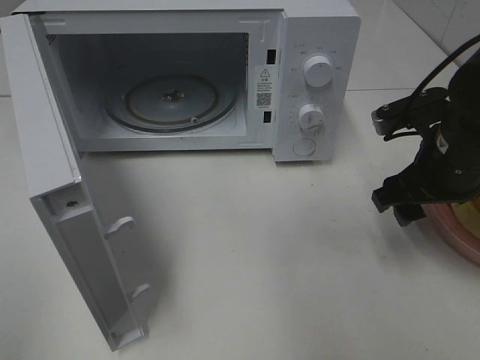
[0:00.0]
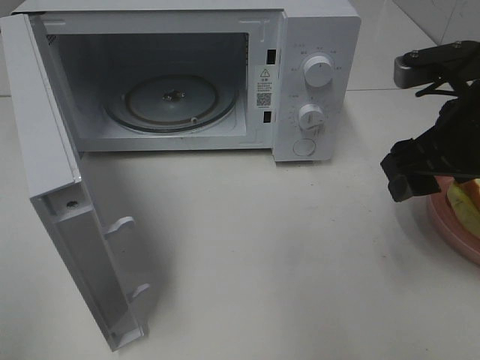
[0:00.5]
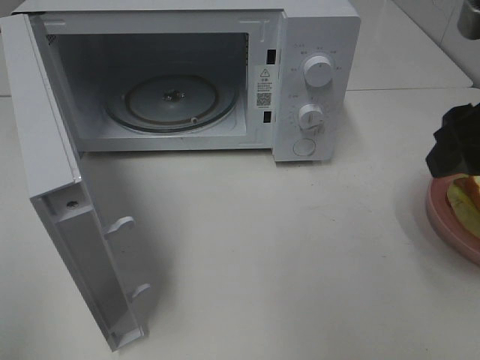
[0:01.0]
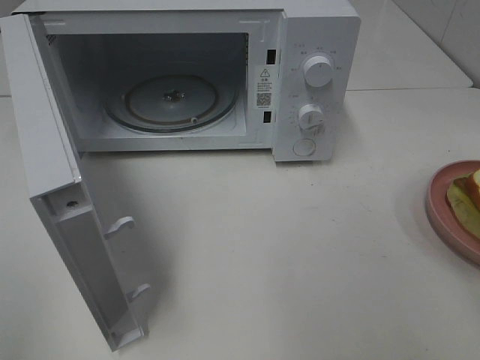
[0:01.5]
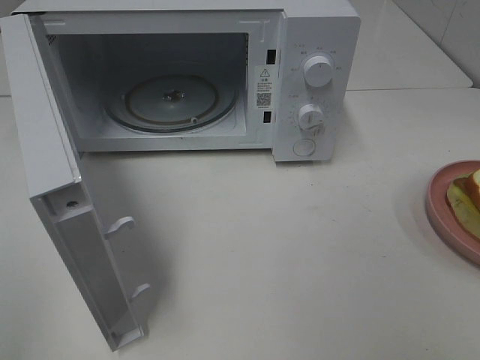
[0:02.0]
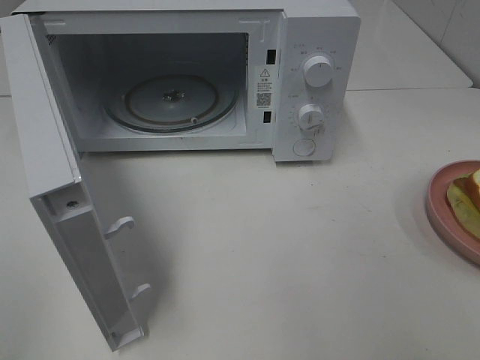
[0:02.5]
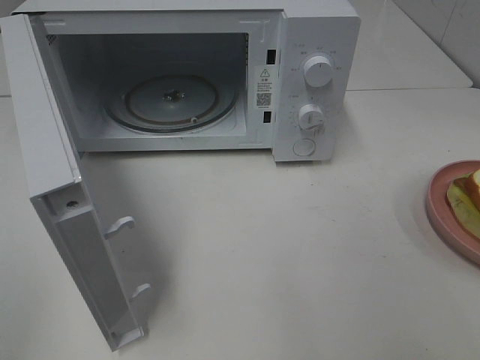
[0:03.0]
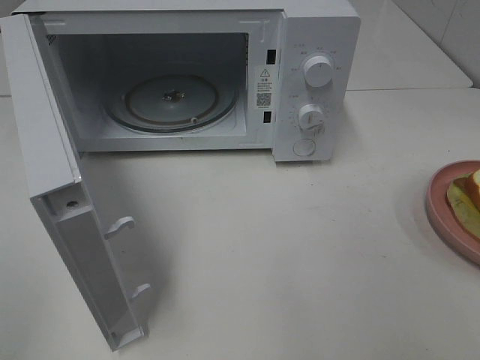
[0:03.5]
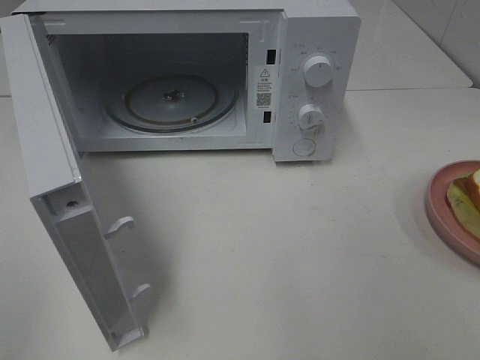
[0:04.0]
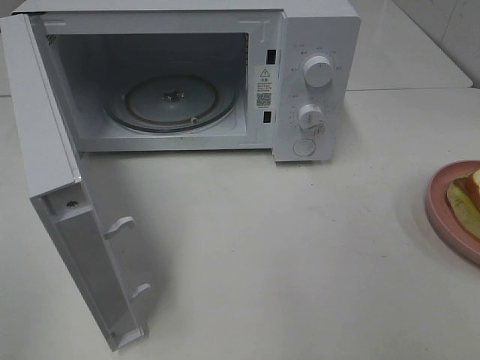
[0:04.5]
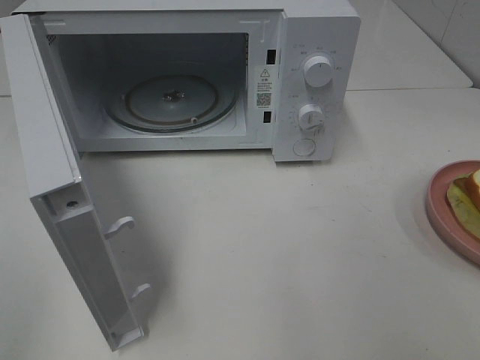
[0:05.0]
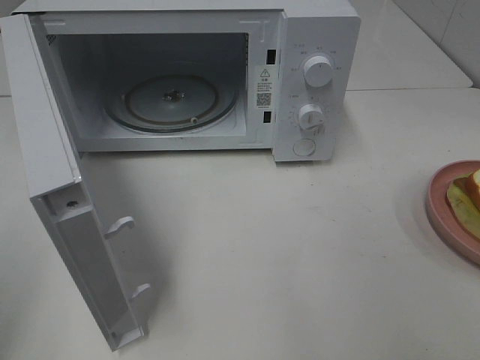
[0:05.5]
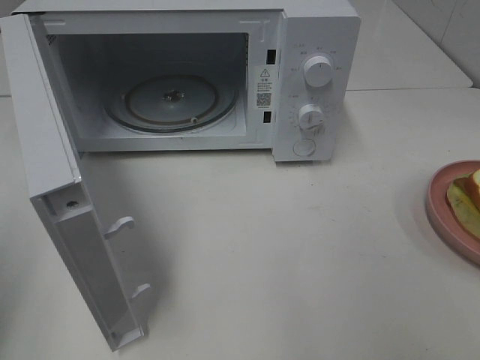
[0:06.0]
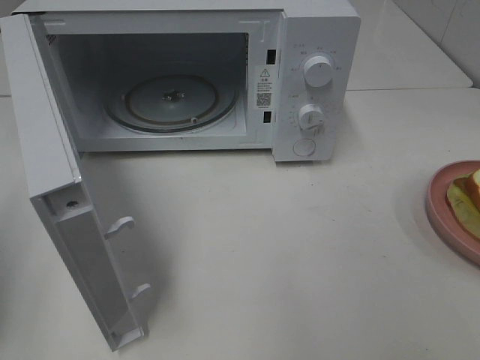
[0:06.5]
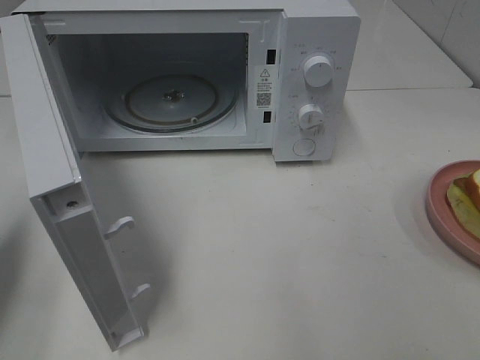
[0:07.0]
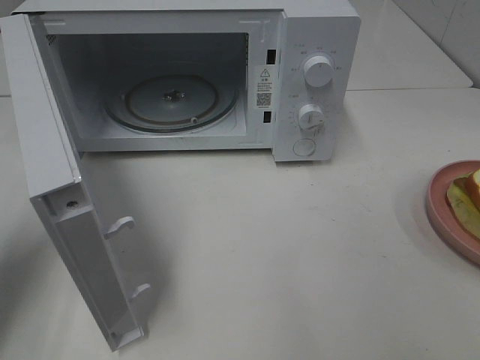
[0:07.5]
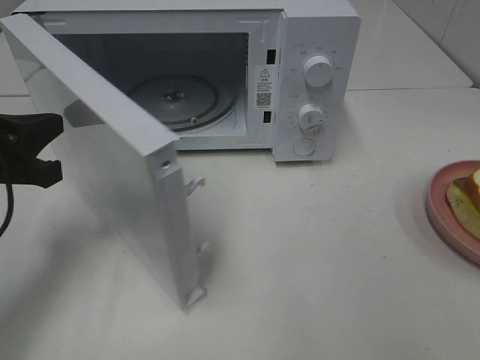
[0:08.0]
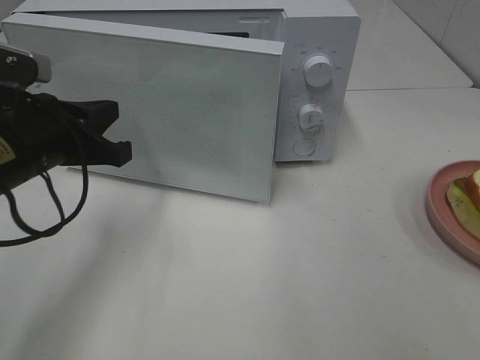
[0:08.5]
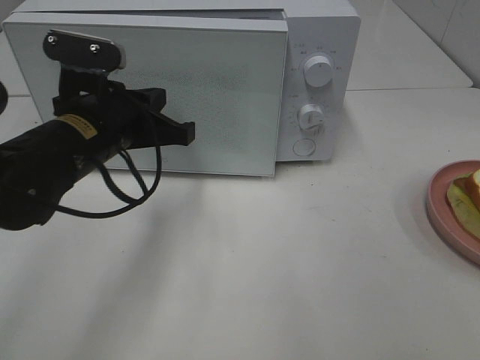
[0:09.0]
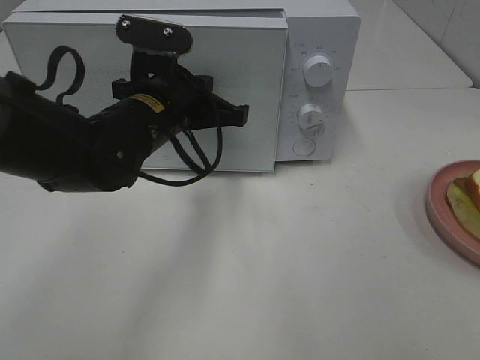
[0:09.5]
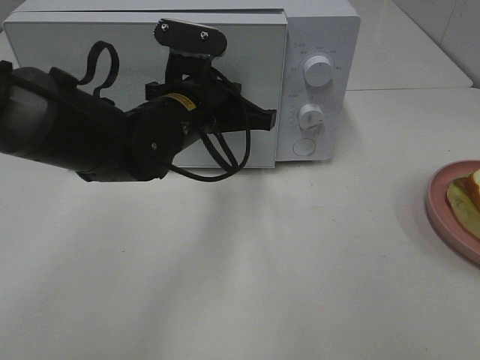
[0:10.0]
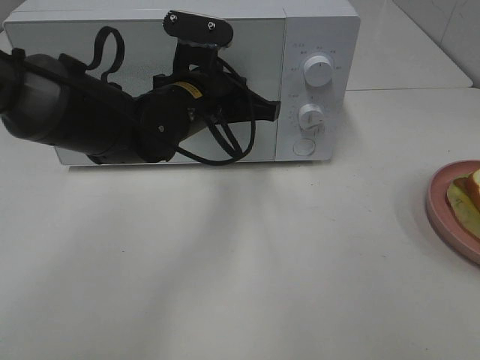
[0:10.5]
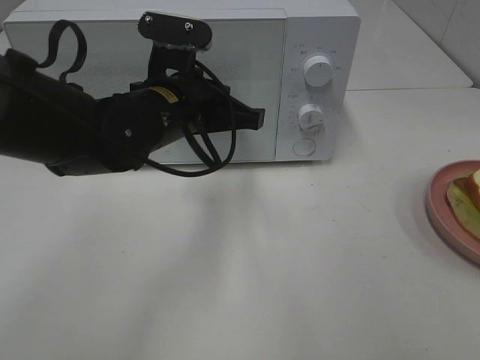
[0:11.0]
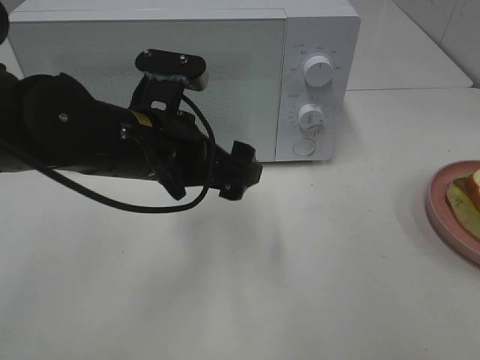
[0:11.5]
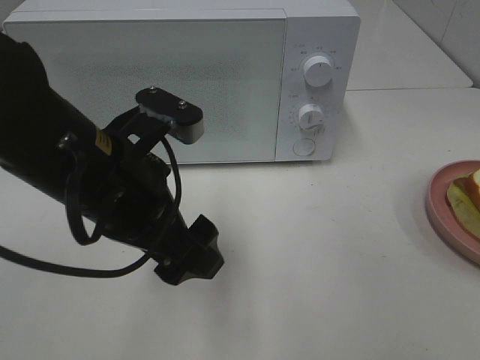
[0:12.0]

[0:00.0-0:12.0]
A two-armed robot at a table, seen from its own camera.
Task of the whole recording: Heat Sandwich.
Step, 0:00.0 to 0:10.5: Left hand: close the microwave door.
0:00.0 to 0:02.0: The right gripper heads backward and upward, covering roughly 25 cm.
0:06.0 to 0:08.0: The left gripper goes about 20 cm forward, downward and to the right.
0:08.0 to 0:10.0: The left gripper is displaced to the right and forward by approximately 20 cm.
0:10.0 to 0:12.0: The left gripper goes about 15 cm backward and to the left, and opens up.

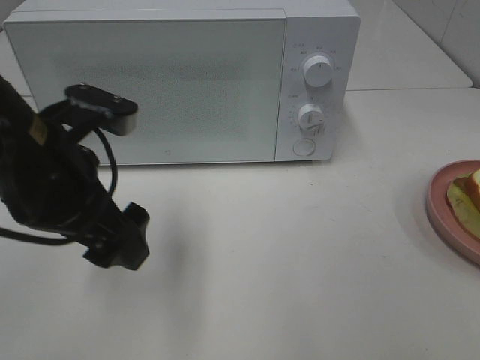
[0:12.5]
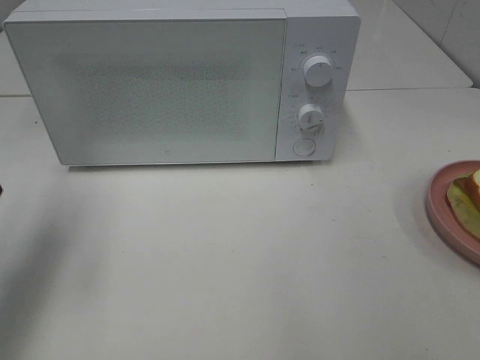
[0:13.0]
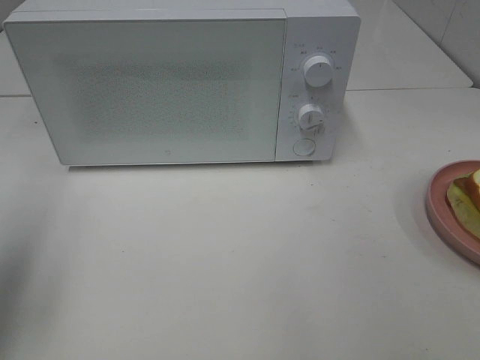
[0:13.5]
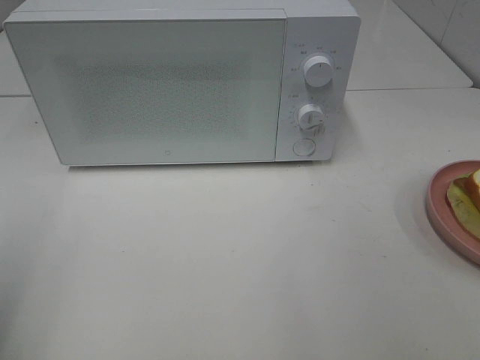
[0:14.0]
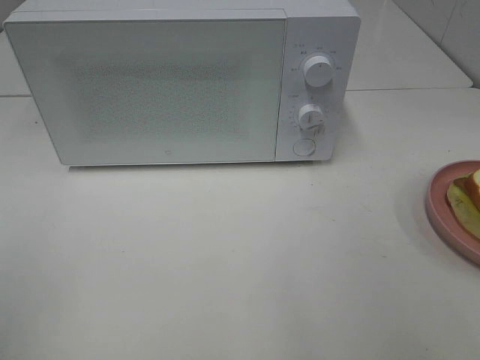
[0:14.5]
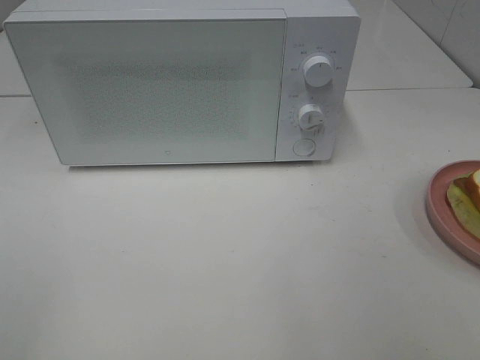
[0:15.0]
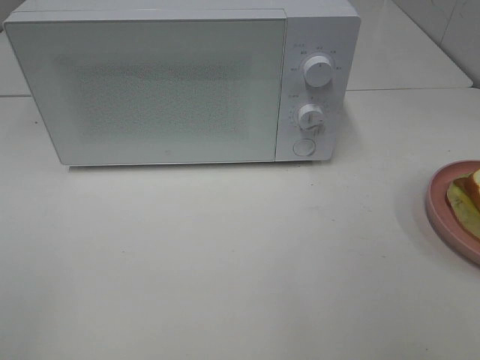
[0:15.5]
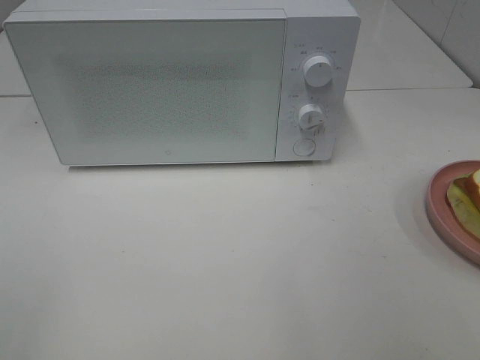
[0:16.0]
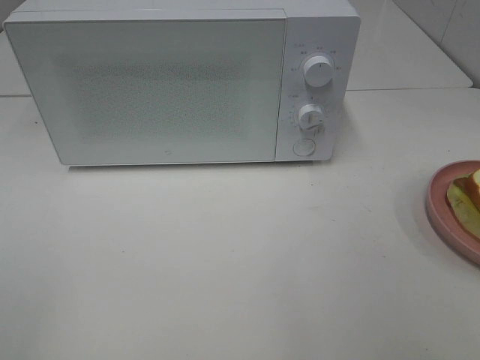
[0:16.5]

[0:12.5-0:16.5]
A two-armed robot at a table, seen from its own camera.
Task of the whole recording: Heat Sandwich.
0:12.5 to 0:14.5: The left gripper goes roughly 25 cm backward and to the left.

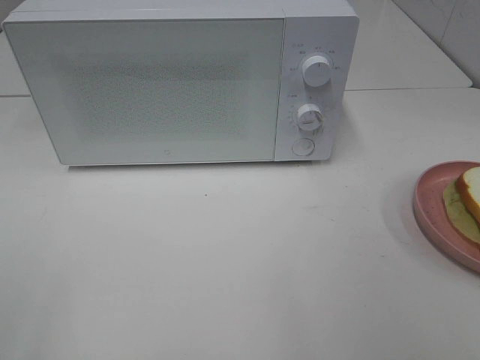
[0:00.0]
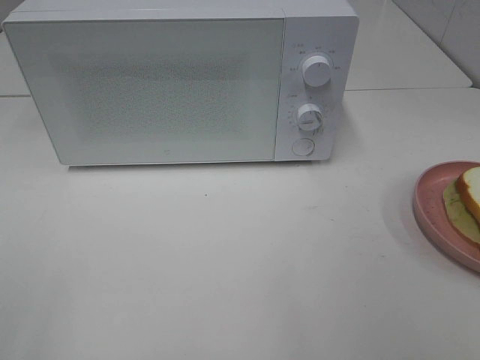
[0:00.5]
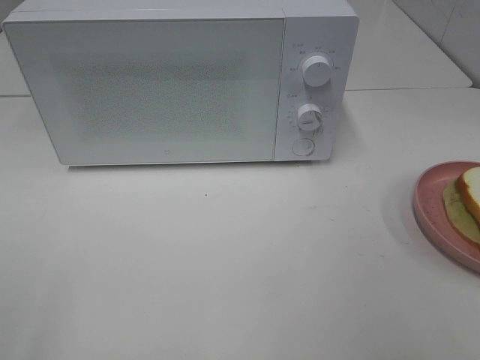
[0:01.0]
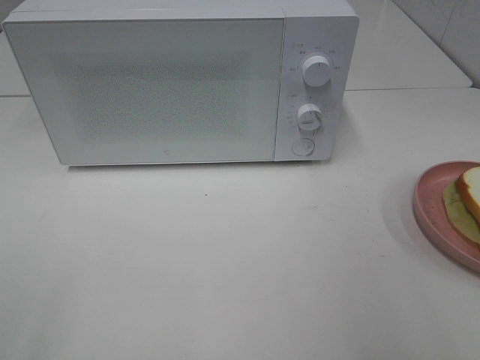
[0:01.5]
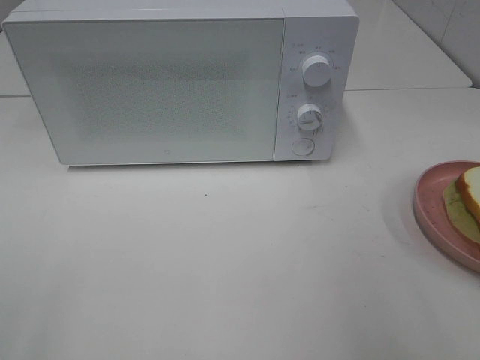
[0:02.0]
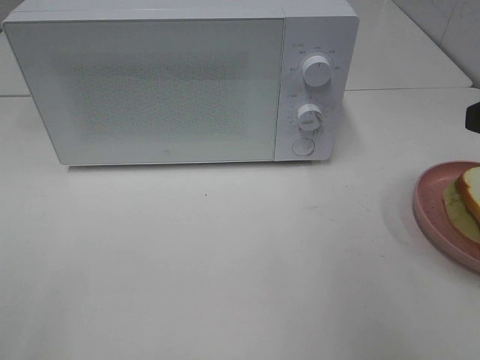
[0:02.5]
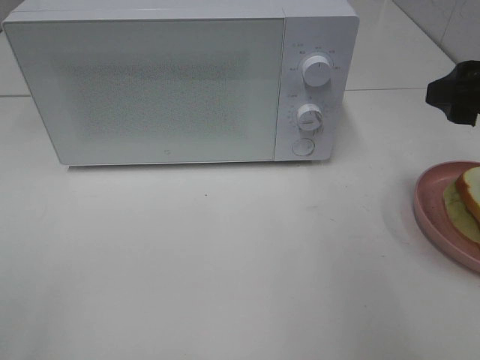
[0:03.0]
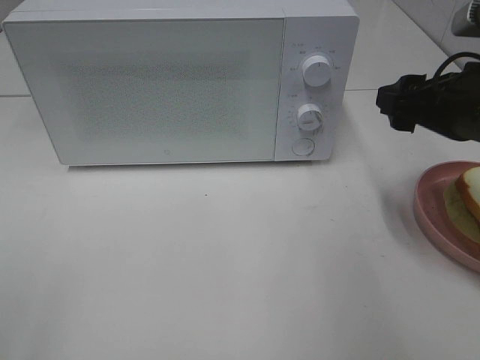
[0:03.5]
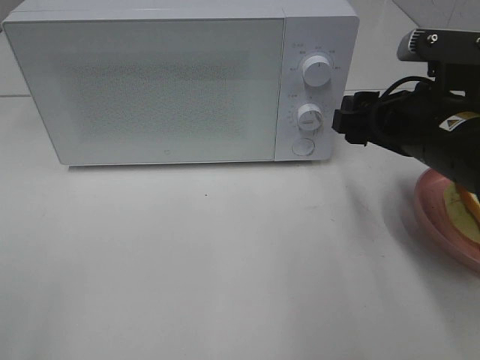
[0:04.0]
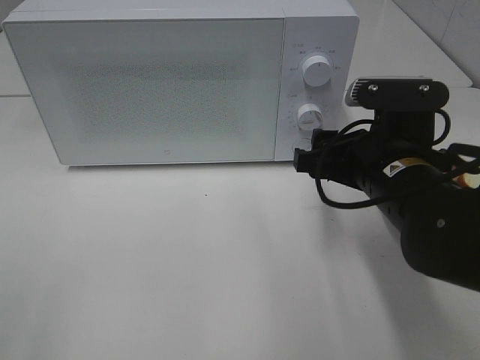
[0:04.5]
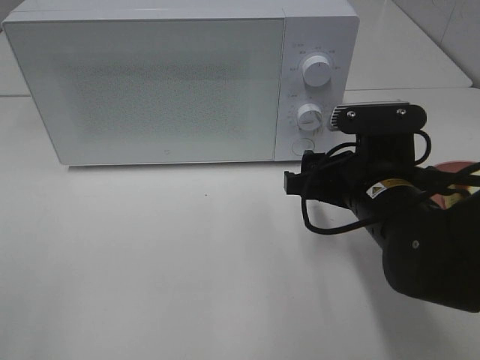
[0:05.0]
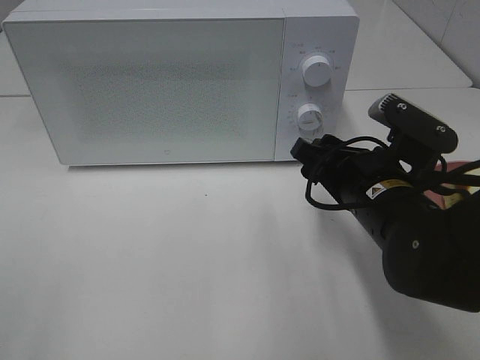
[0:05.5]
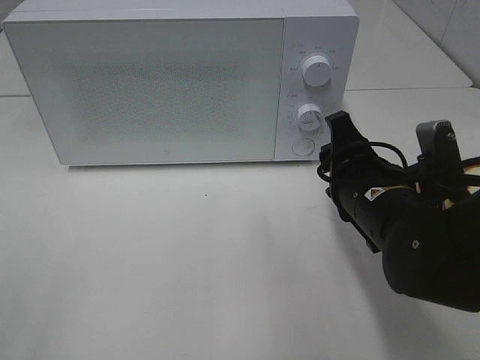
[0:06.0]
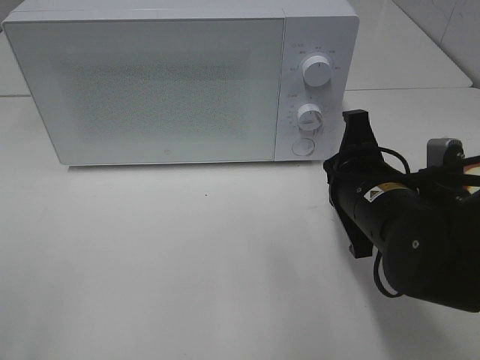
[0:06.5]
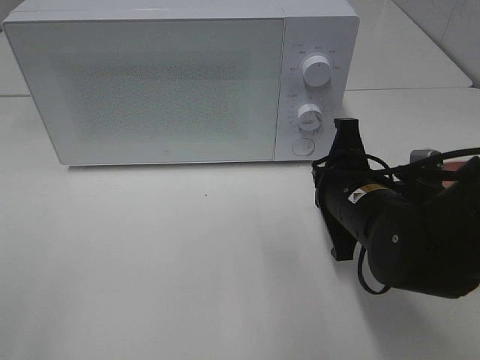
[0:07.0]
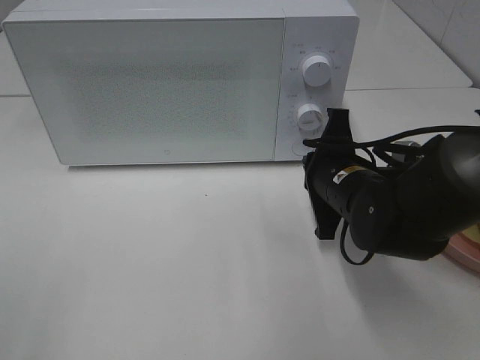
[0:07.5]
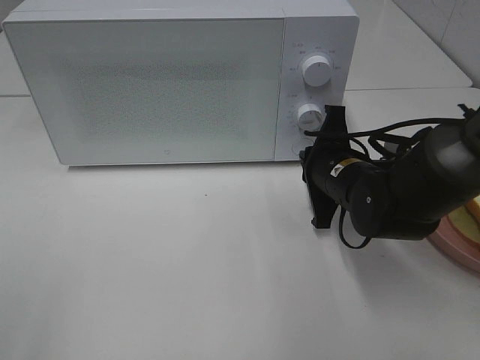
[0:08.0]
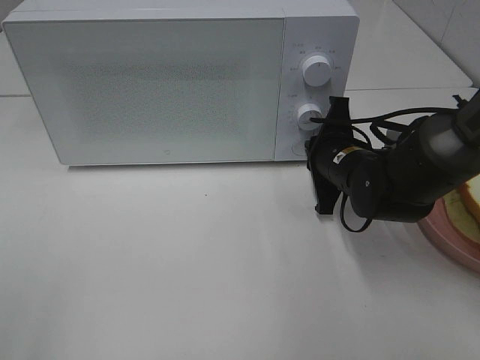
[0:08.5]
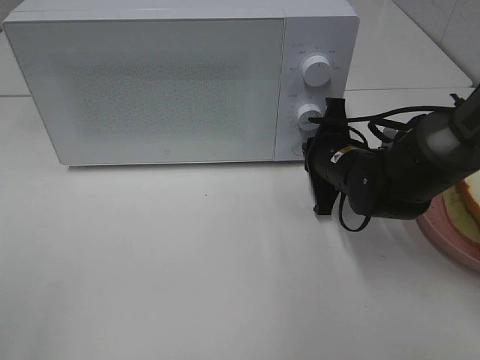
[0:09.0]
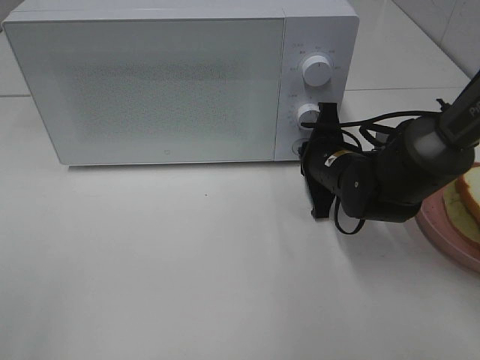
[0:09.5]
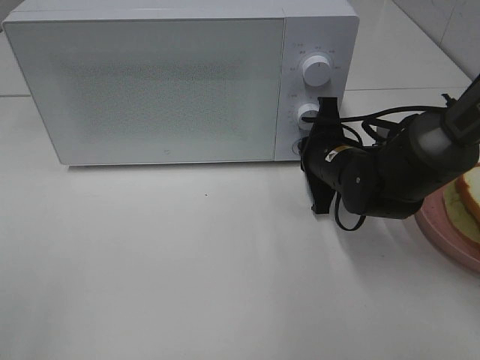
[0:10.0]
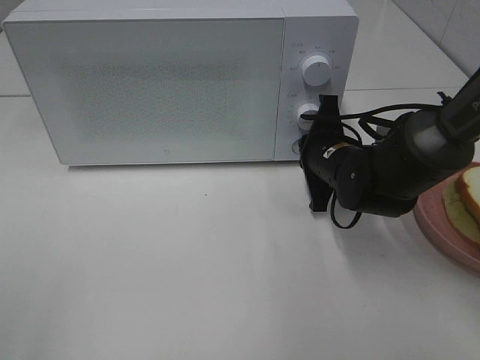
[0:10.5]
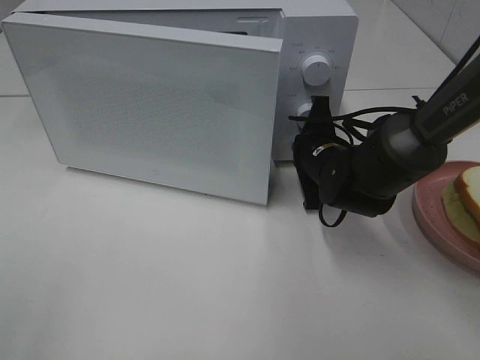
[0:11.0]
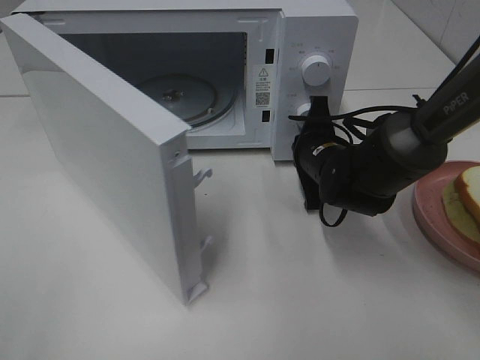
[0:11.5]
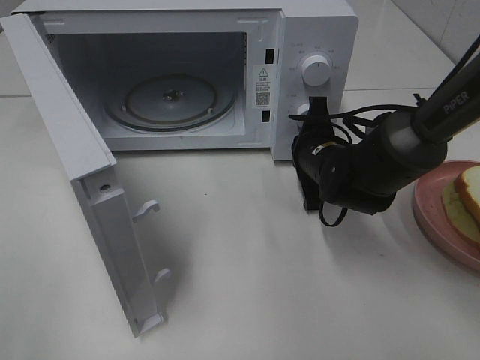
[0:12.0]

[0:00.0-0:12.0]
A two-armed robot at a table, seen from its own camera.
Task of the whole recording: Heat Sandwich.
0:02.0 to 0:04.0: The right gripper shifts some 20 cm forward, downward and to the left.
0:04.0 to 0:06.0: The right gripper heads downward and to the left, covering about 10 cm.
0:06.0 to 0:08.0: The right gripper shifts about 10 cm forward, and closes its fingers.
0:08.0 to 0:10.0: The grippers move only a little.
